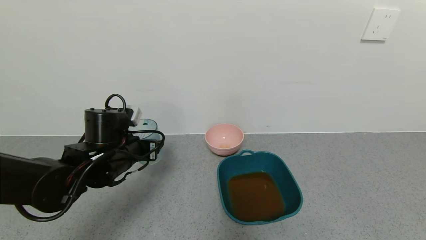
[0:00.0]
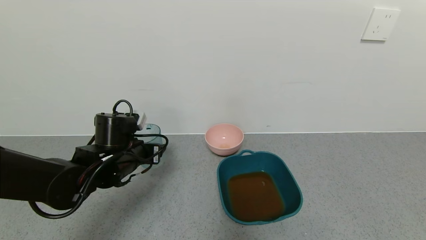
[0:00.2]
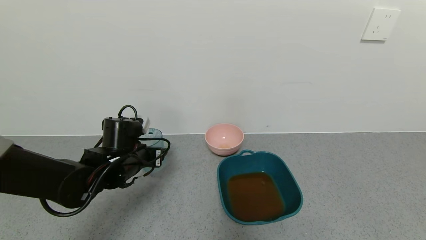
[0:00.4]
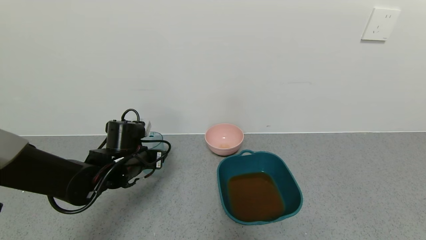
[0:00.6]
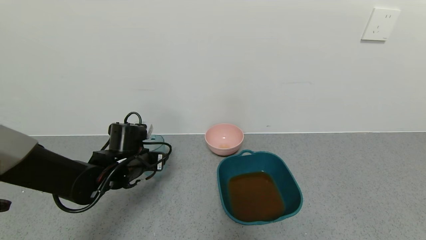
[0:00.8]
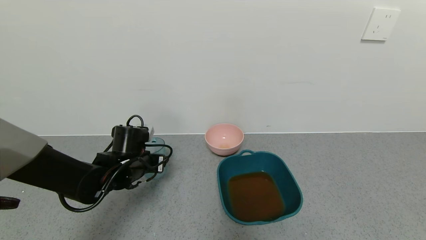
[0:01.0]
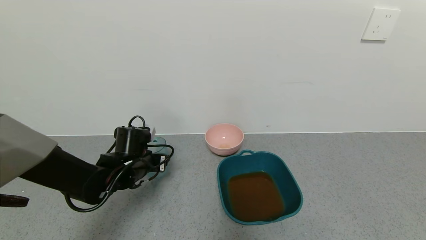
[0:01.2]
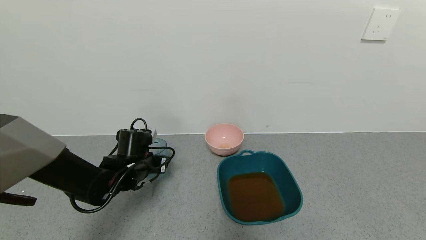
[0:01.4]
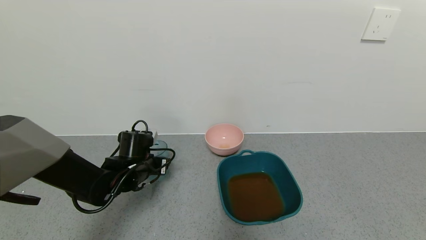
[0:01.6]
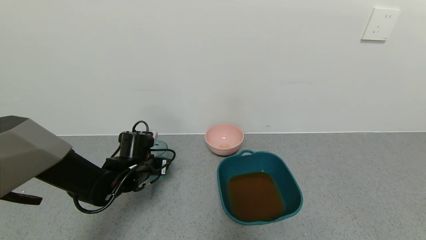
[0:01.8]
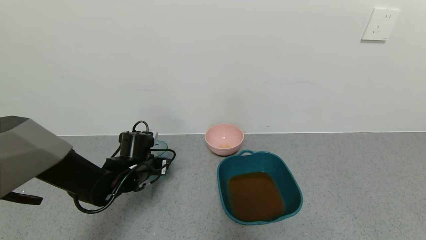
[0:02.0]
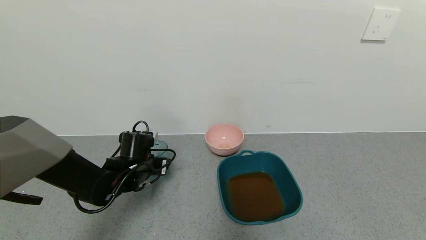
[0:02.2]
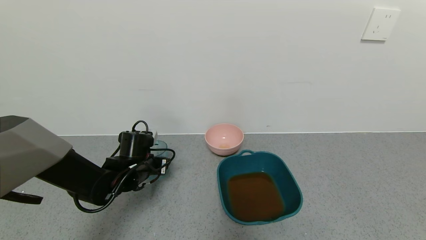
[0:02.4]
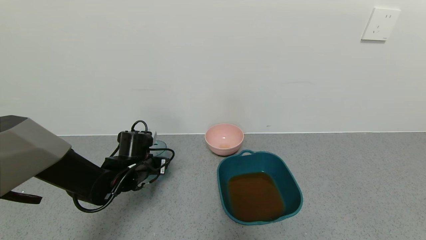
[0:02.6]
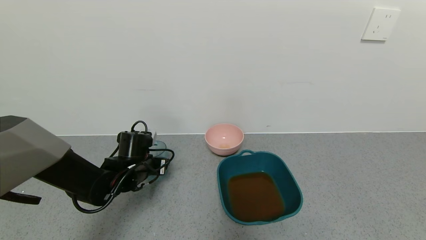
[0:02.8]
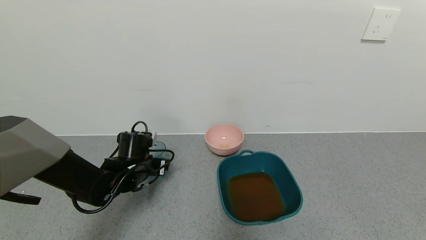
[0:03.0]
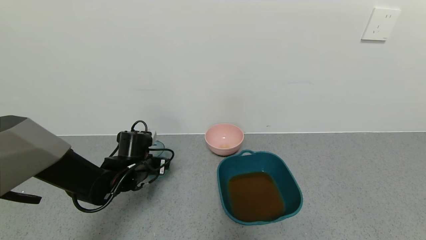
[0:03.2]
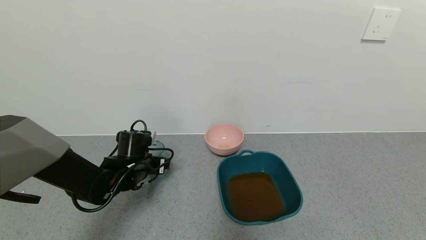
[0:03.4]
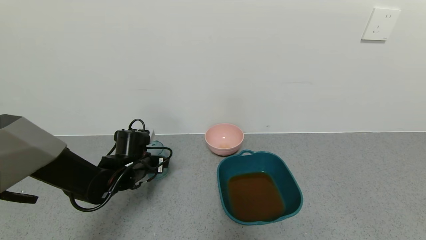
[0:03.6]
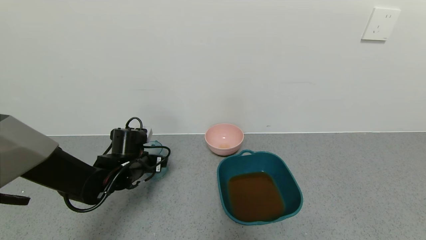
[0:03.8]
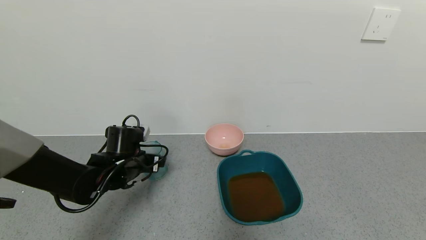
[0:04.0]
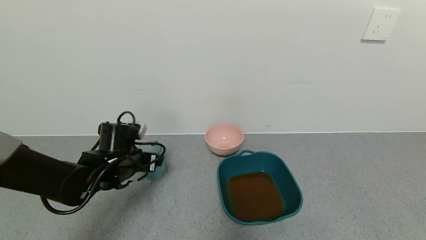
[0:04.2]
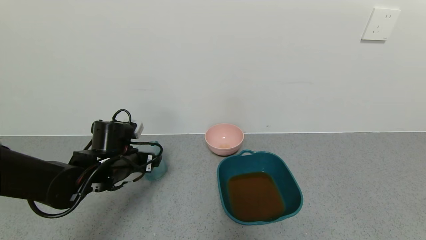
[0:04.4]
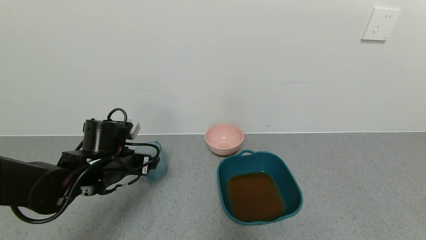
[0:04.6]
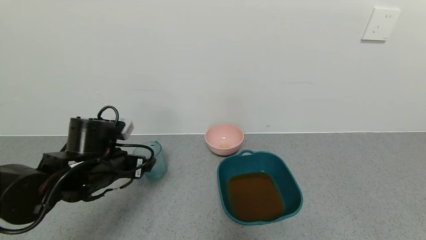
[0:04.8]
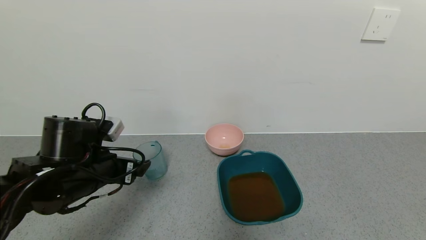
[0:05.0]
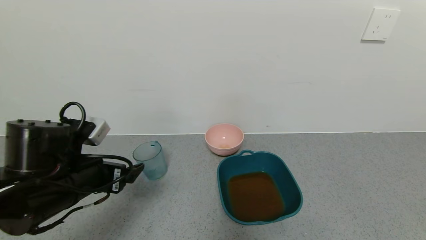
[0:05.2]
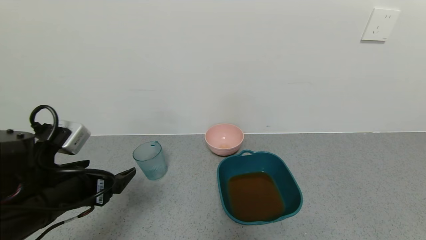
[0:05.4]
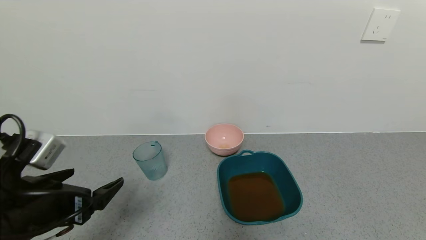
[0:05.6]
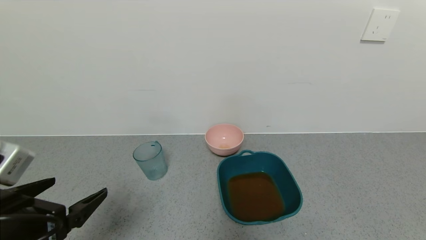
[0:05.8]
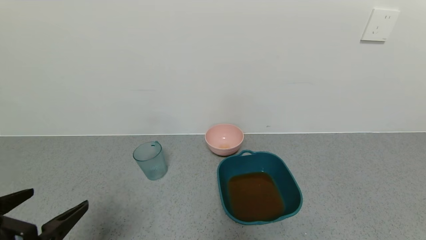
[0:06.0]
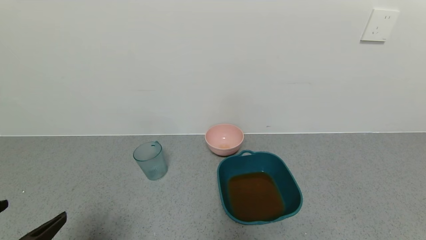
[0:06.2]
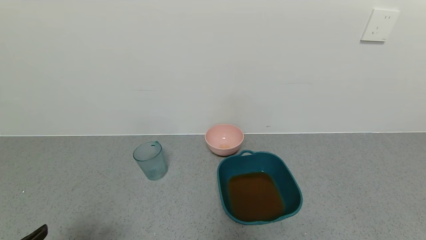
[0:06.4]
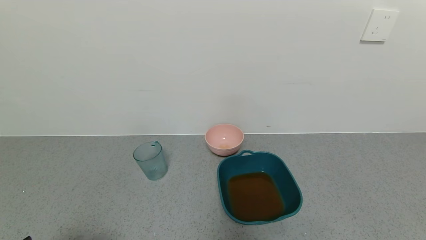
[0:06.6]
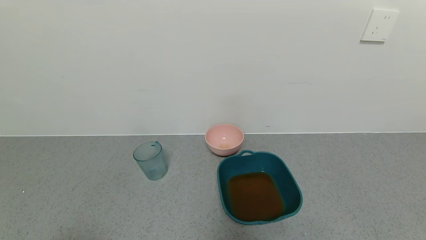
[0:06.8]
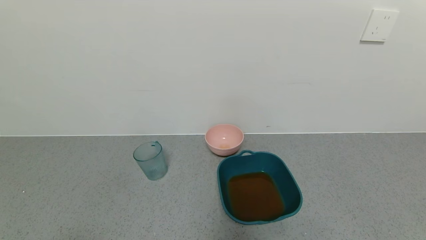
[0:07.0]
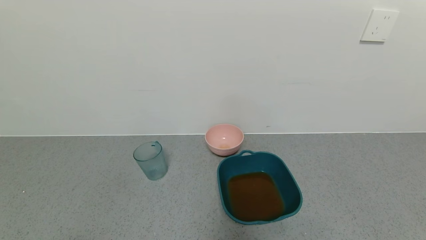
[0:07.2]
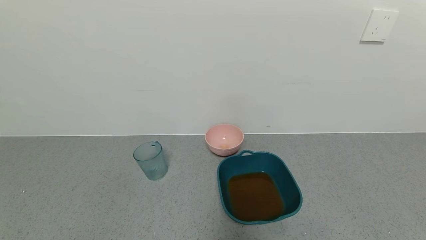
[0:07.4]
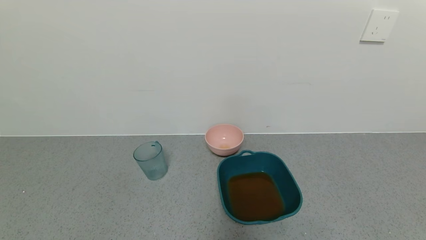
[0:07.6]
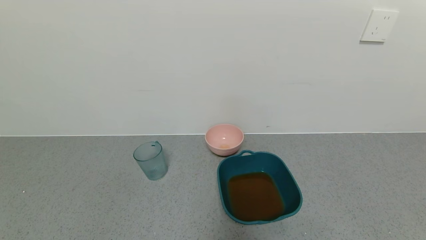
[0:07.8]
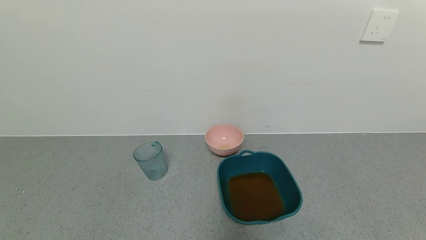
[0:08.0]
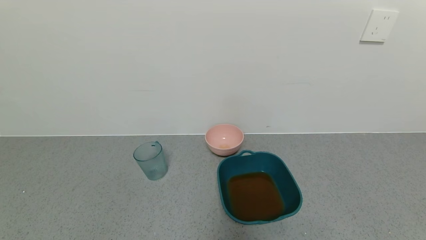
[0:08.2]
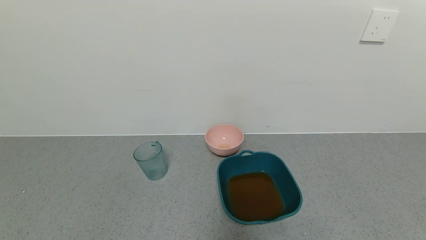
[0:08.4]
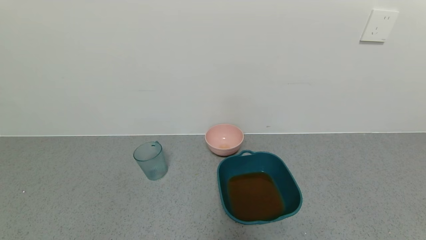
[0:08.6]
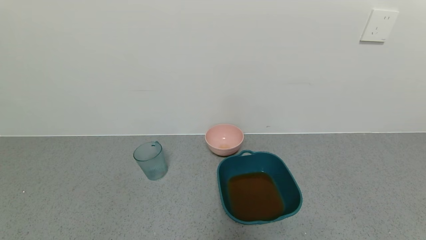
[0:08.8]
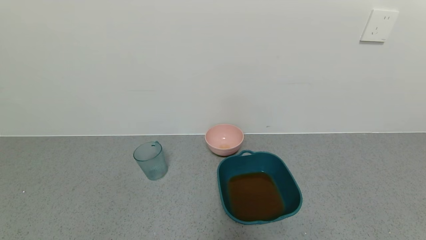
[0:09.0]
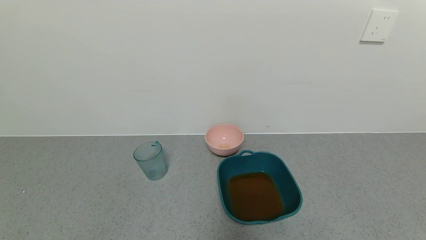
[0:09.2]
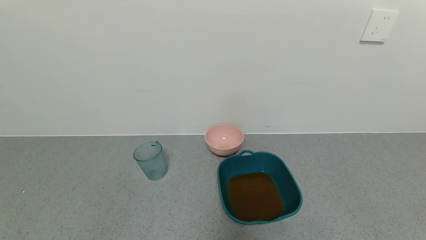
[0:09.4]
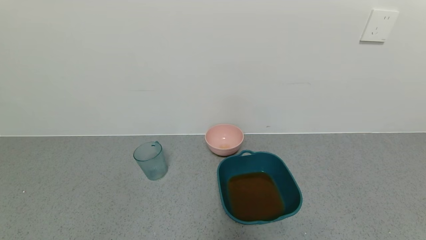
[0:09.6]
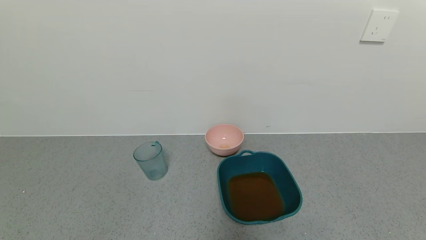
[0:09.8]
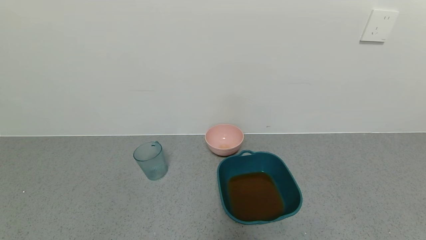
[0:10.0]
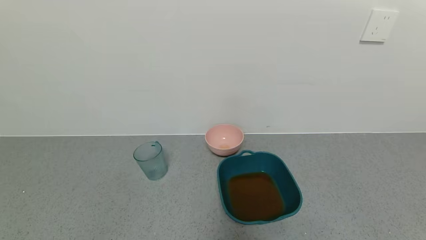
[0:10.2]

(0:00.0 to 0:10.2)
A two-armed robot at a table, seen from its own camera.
Task of the whole recording: use a gripper to pick up the cup and pour the liquid into a bowl or tray.
Step, 0:00.0 - 0:04.2: Place blue cup with tea on the table with left gripper.
0:00.0 - 0:01.4: The left gripper shifts about 5 cm downward.
0:01.4 - 0:03.0: The left gripper opens up.
0:03.0 - 0:04.4: The left gripper ends up some 5 cm from where it was, and opens its fingers.
0:04.4 - 0:05.8: The left gripper moves backward, approximately 20 cm.
0:05.8 - 0:07.2: The left gripper travels backward by about 15 cm.
